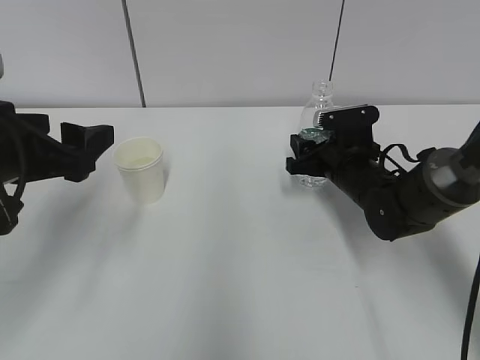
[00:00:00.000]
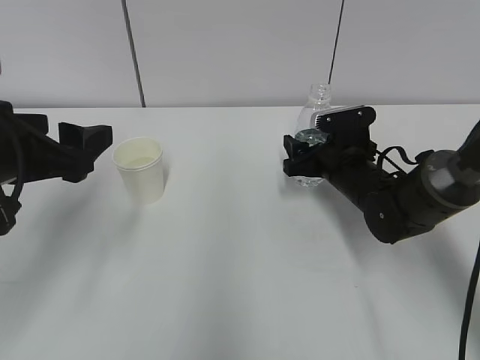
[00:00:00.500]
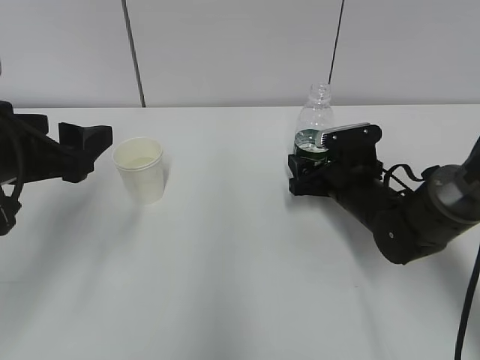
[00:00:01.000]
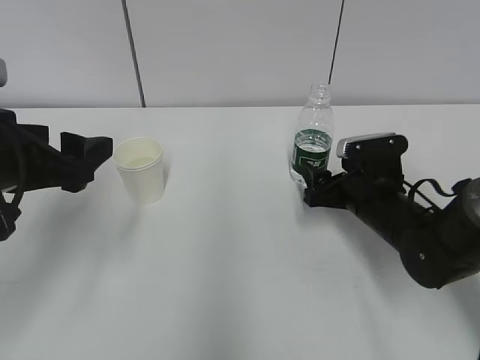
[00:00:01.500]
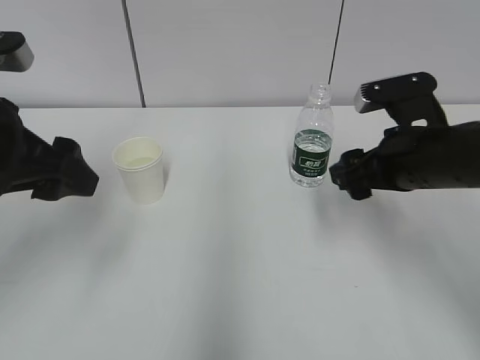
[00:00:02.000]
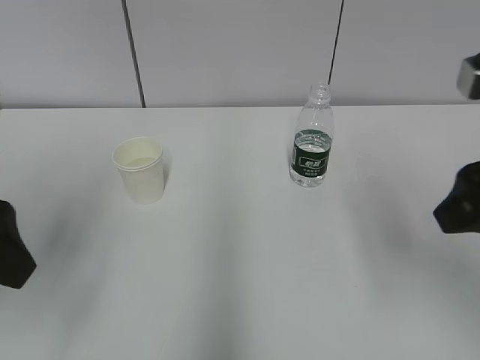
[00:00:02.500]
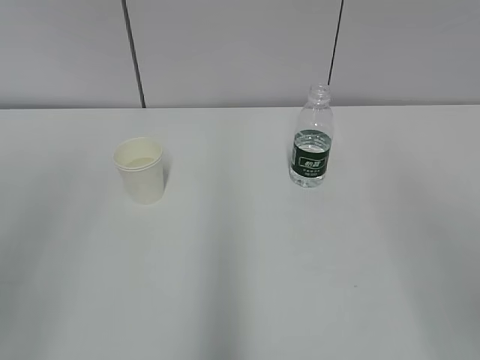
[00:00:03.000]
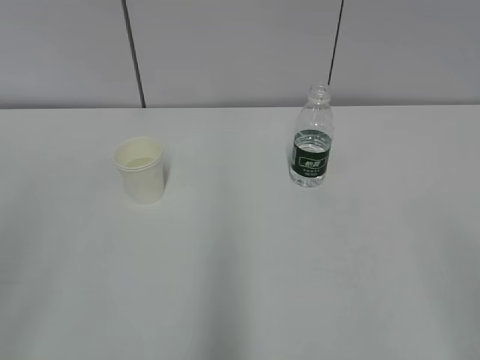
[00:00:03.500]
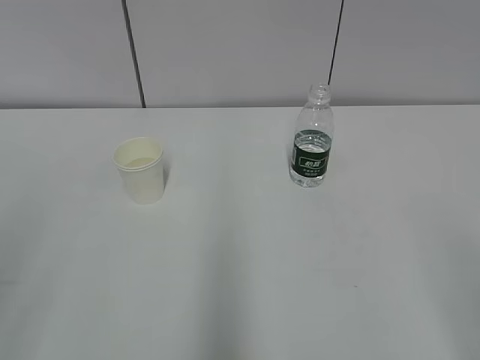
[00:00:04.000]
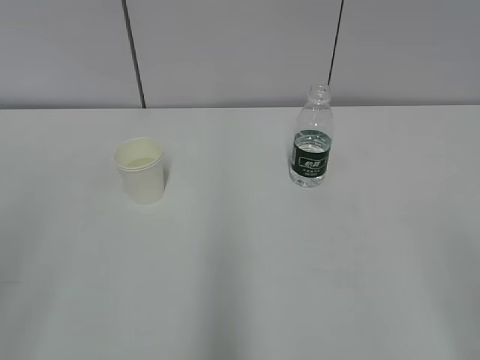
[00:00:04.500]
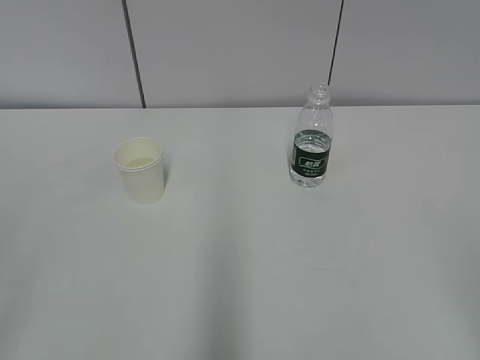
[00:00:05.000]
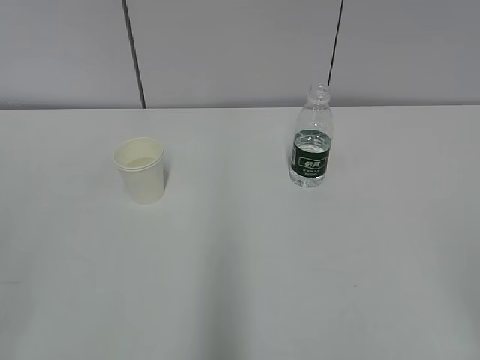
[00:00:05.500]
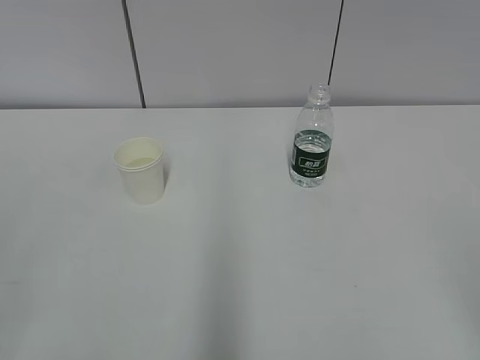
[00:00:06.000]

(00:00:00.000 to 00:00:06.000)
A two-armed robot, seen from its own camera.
00:00:00.000 - 00:00:02.000: The right gripper goes roughly 15 cm upward and backward, and opens.
00:00:02.000 - 00:00:04.000: The two grippers go roughly 25 cm backward.
